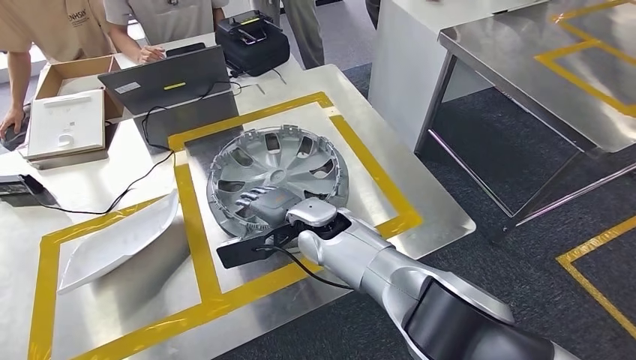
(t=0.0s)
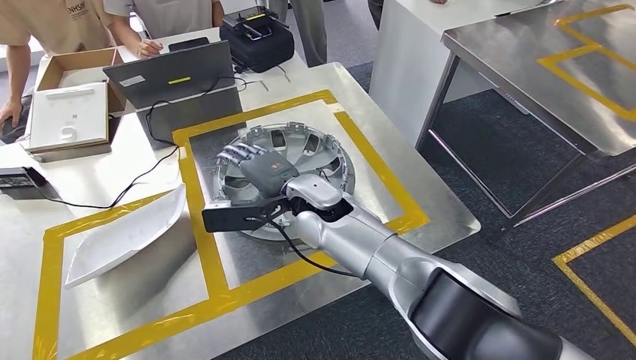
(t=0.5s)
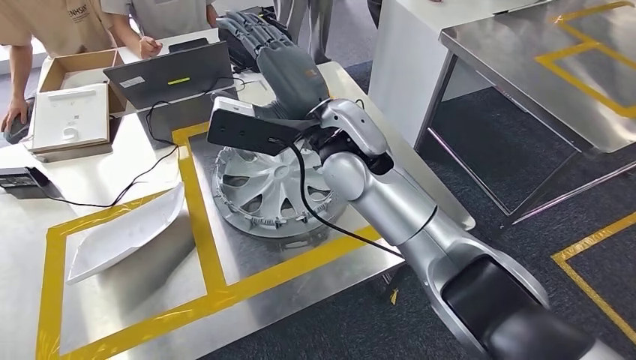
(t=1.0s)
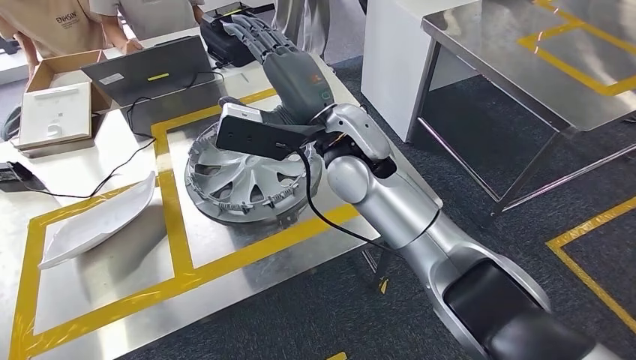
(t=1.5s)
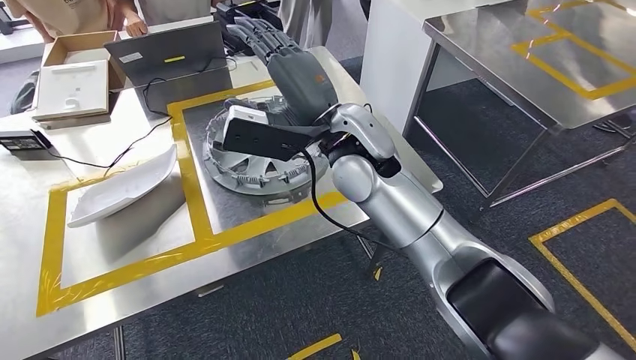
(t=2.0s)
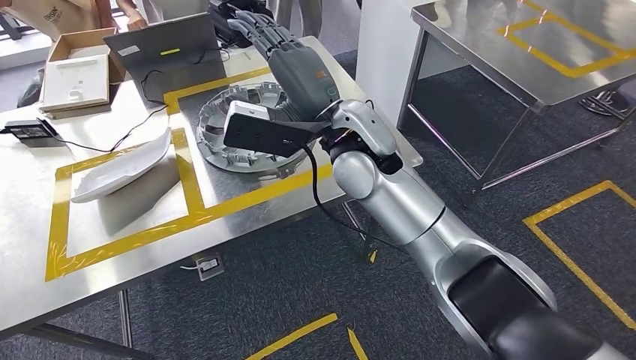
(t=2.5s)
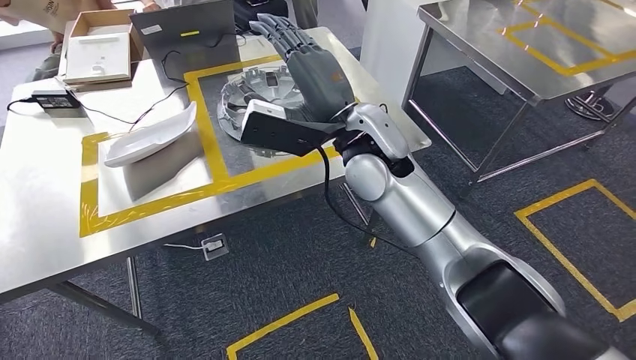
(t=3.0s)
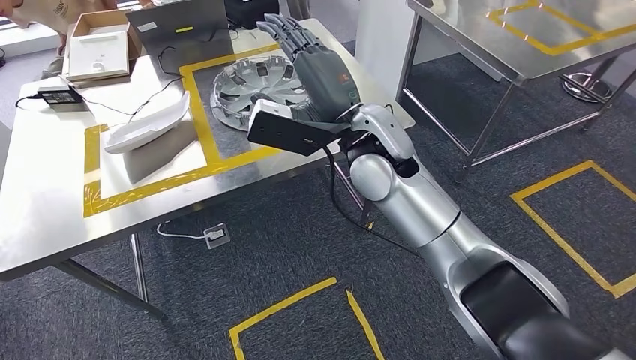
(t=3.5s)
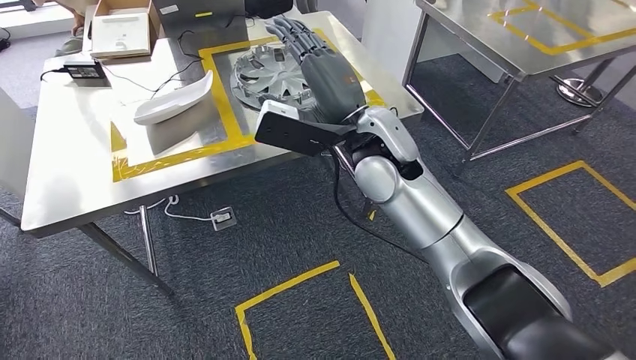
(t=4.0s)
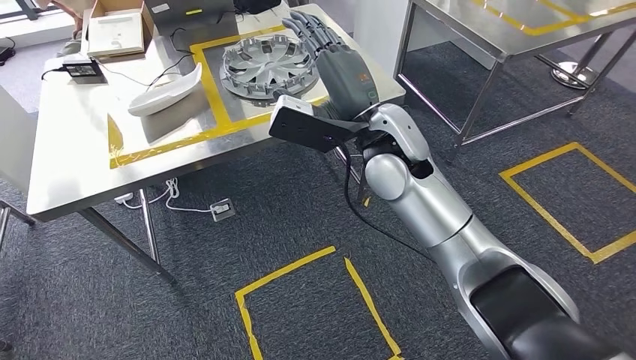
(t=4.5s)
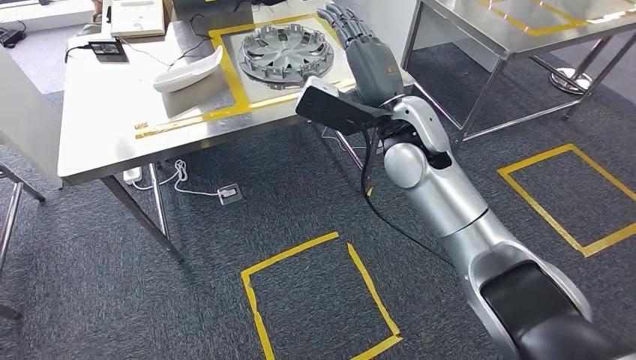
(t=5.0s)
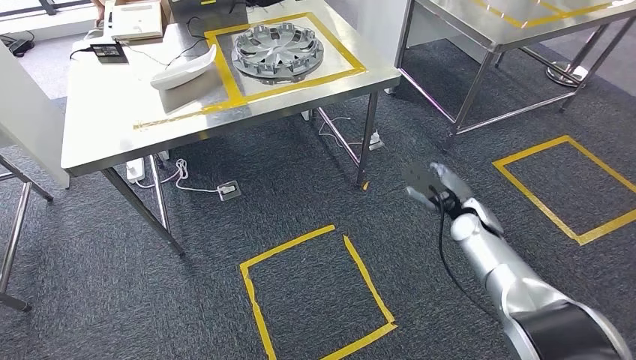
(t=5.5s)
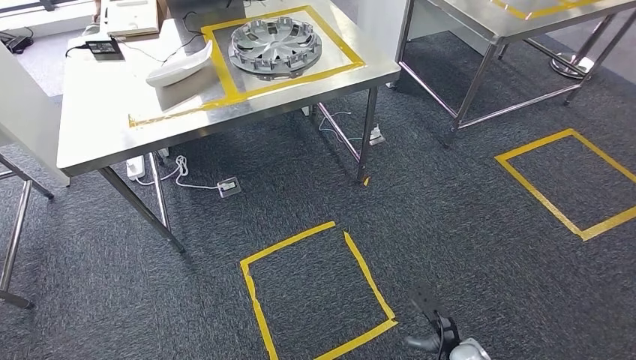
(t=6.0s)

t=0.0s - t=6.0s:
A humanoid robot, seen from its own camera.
Step, t=1.0s - t=6.0s: Move to the initial position at the workbench.
